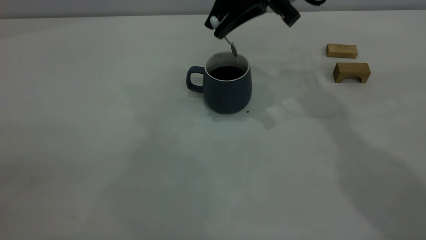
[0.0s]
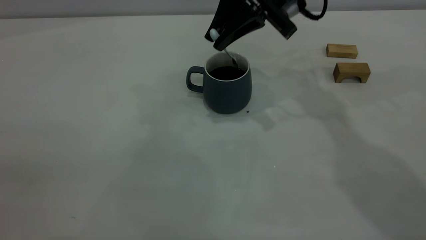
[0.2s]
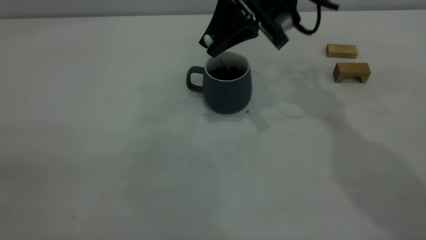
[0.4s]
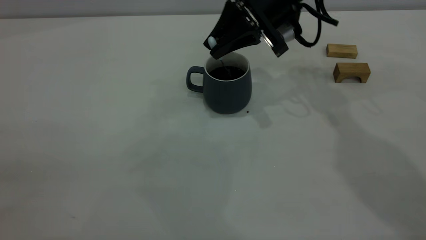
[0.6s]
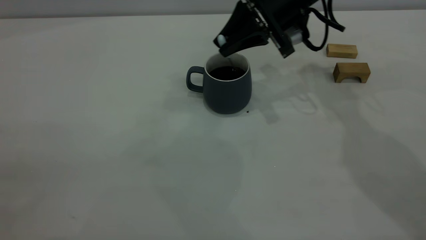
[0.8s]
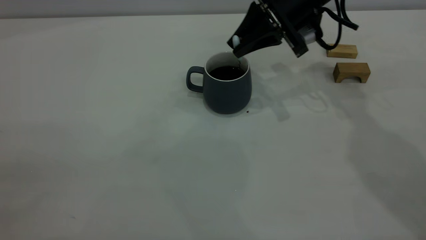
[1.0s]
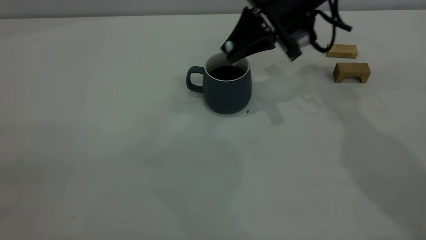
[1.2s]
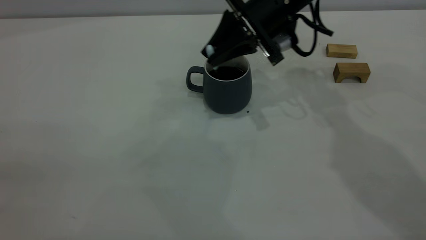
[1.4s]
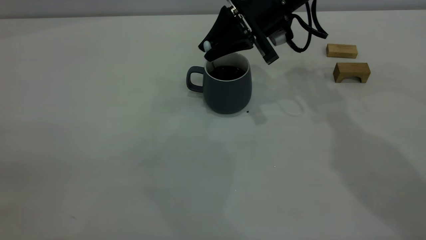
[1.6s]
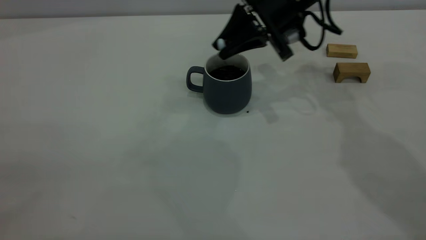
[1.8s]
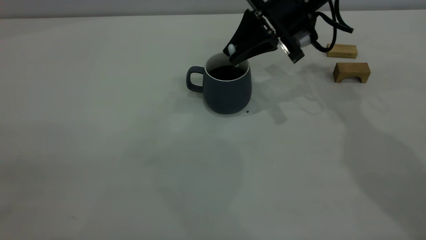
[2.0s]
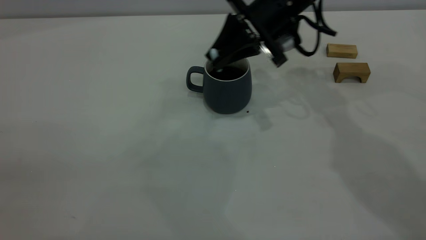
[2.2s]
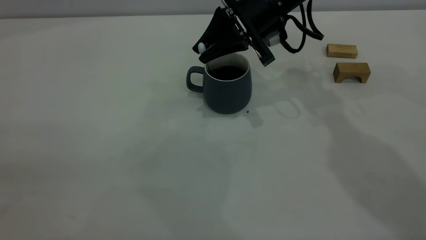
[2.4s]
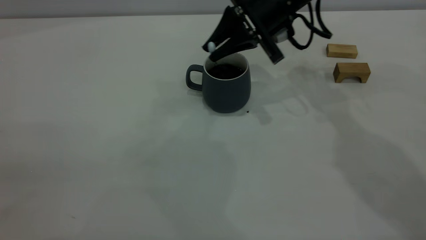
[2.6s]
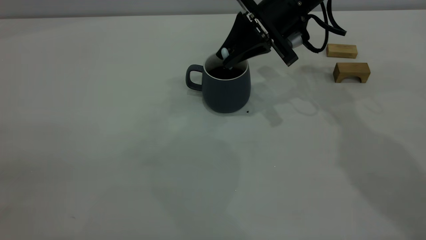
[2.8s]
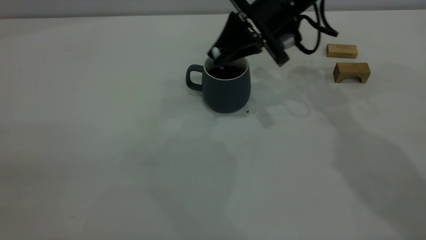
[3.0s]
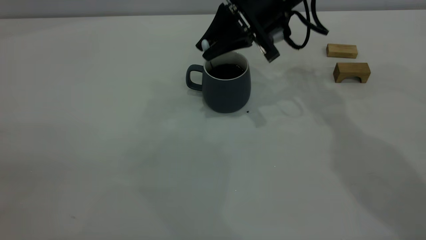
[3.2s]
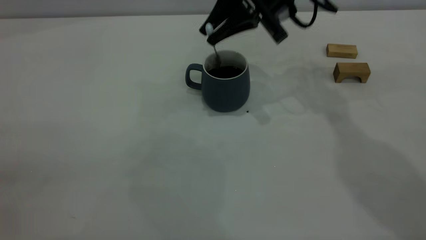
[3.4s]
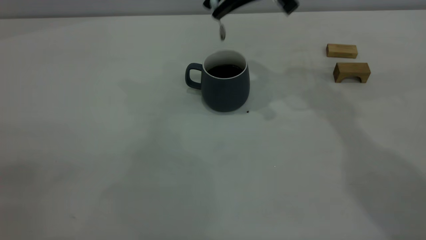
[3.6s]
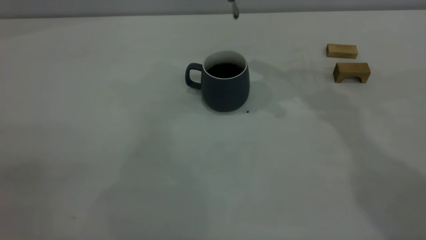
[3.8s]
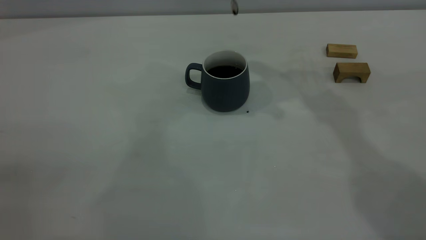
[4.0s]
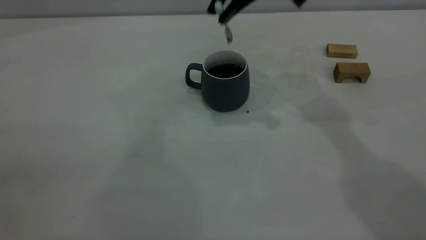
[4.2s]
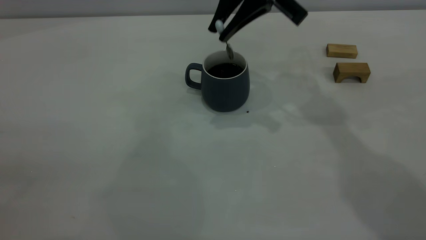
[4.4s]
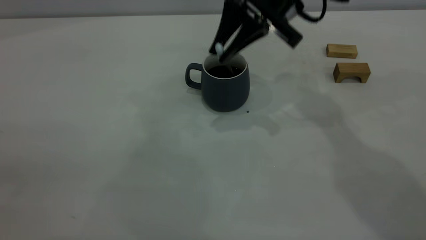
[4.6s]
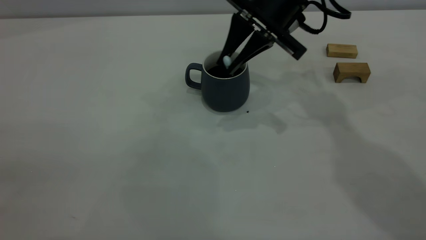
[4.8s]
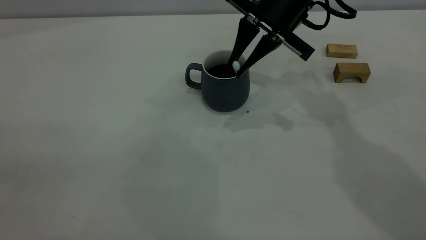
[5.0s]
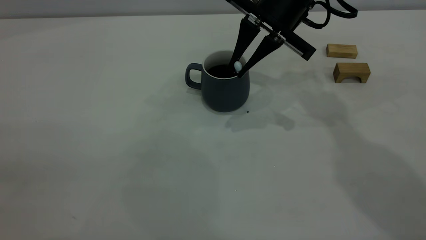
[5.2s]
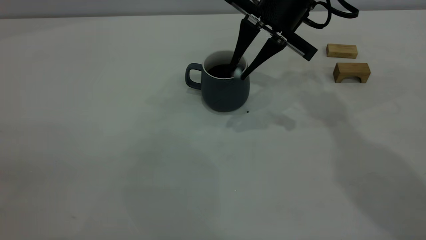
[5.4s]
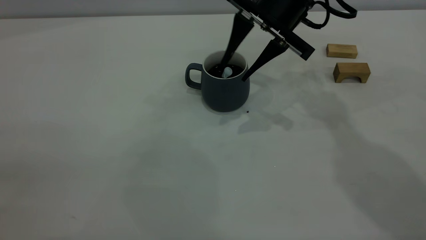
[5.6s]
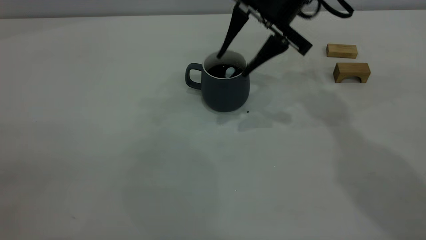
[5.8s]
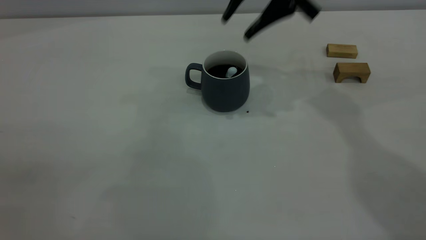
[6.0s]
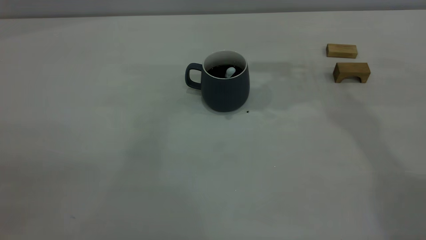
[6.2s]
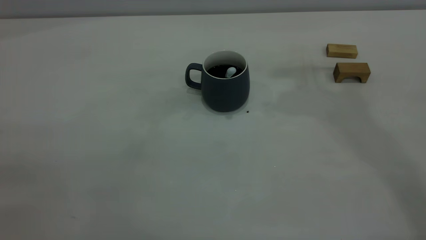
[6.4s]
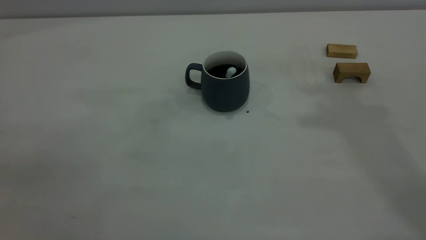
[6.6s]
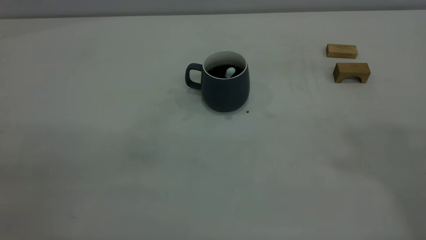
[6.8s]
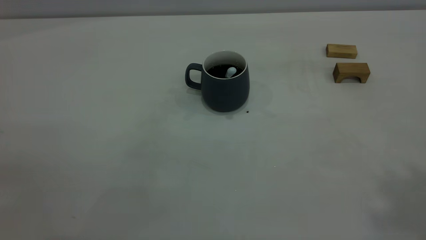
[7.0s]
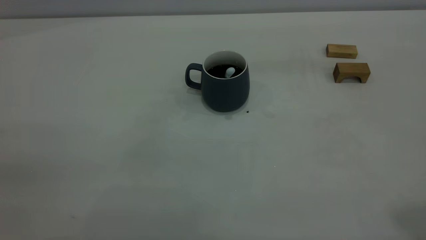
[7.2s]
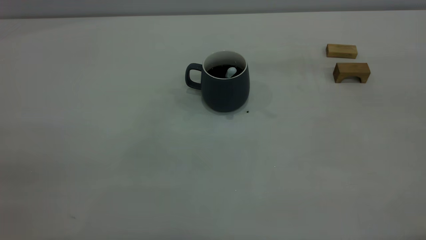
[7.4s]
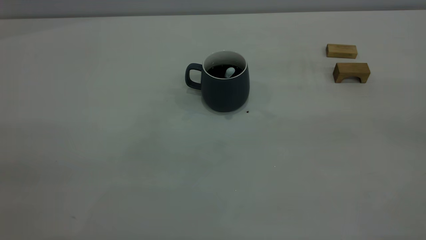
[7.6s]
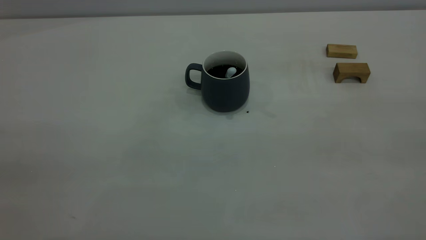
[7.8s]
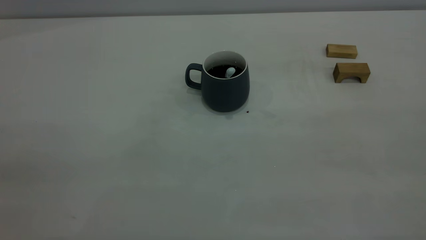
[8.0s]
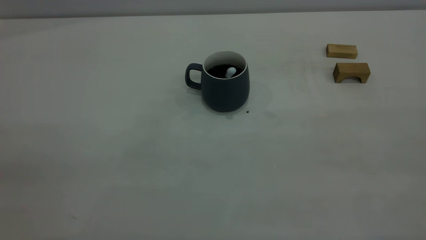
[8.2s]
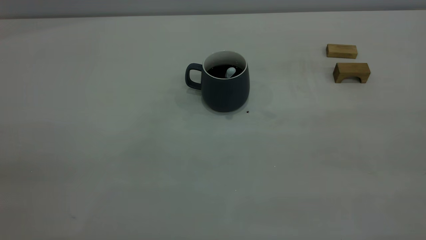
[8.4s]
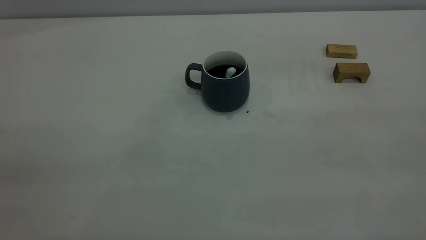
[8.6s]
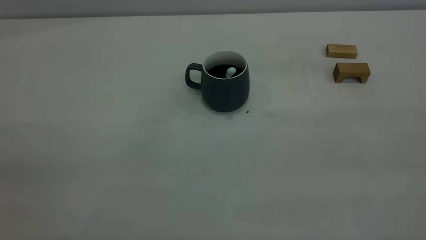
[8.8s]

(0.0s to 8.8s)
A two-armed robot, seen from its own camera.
Step, 0.0s - 5.8s: Stir the coffee in the cup.
0.0s - 1.4s: The right gripper is displaced downward by approximately 5 cm.
1.4s - 3.0s: The grippers move only a little.
3.0s - 4.4s: The right gripper moves upward, some 10 cm.
4.4s - 5.8s: The right gripper opens.
5.8s - 7.4s: The right gripper heads backward, upward and to the right, covering some 50 cm.
